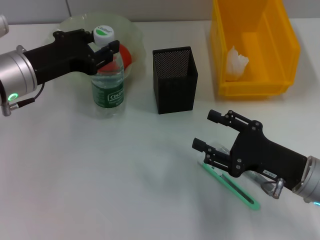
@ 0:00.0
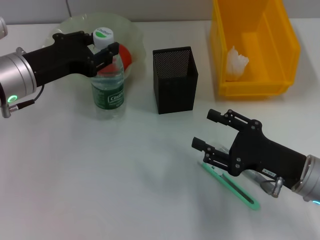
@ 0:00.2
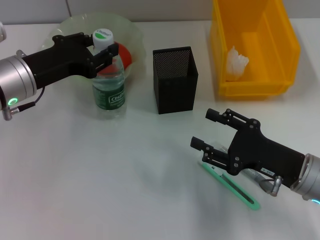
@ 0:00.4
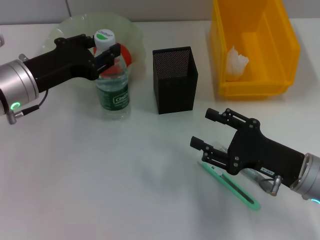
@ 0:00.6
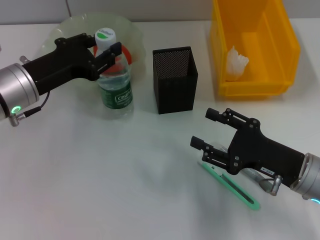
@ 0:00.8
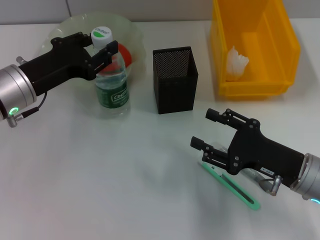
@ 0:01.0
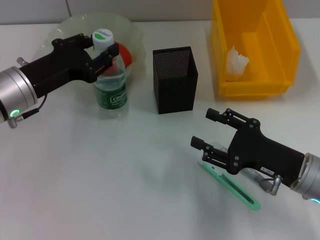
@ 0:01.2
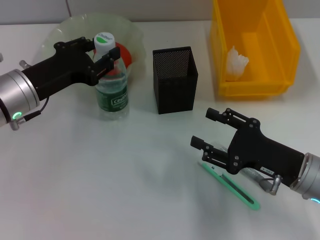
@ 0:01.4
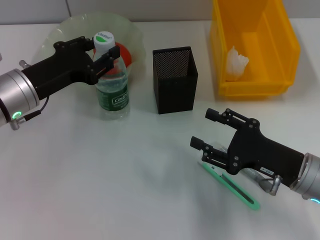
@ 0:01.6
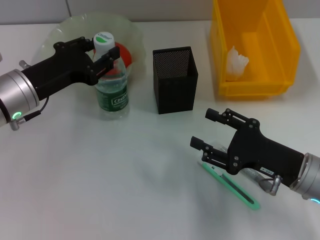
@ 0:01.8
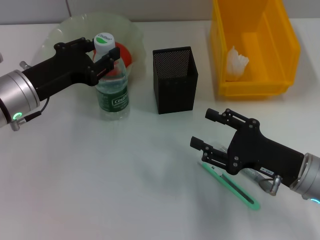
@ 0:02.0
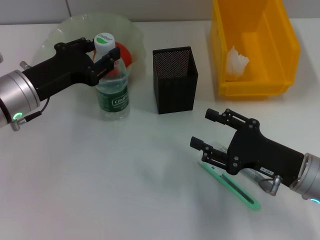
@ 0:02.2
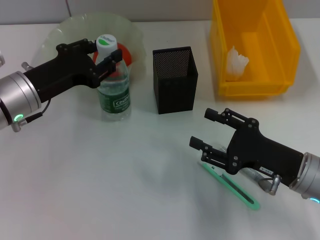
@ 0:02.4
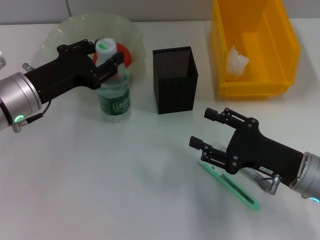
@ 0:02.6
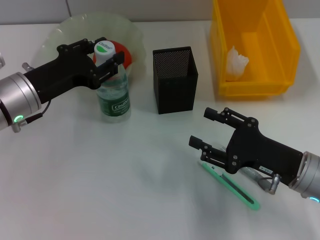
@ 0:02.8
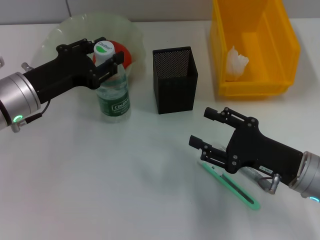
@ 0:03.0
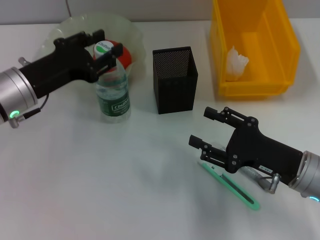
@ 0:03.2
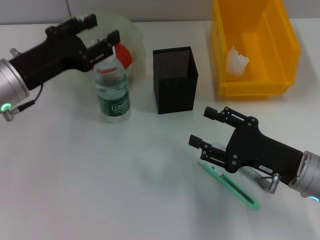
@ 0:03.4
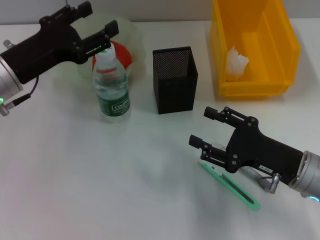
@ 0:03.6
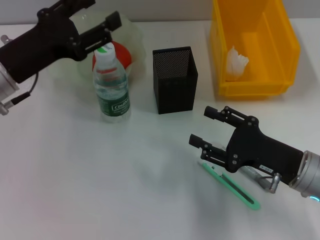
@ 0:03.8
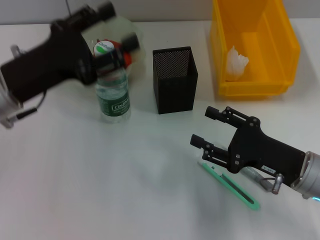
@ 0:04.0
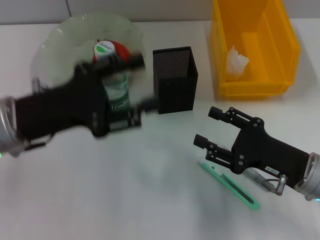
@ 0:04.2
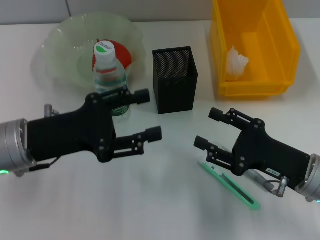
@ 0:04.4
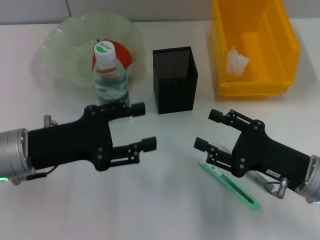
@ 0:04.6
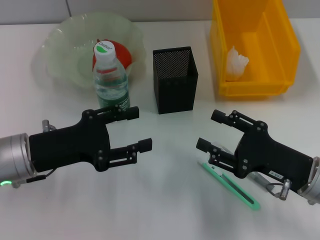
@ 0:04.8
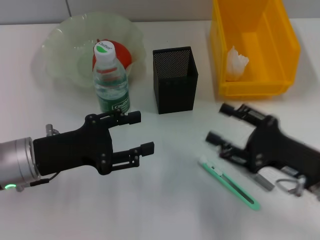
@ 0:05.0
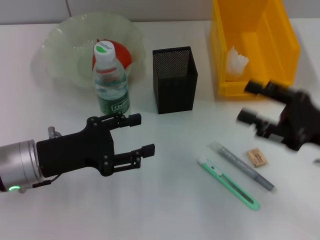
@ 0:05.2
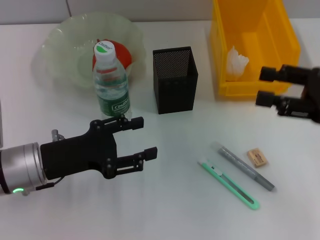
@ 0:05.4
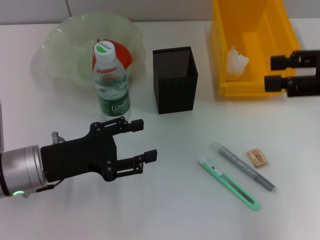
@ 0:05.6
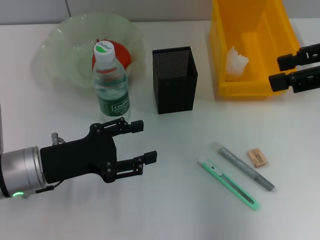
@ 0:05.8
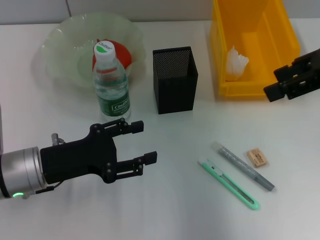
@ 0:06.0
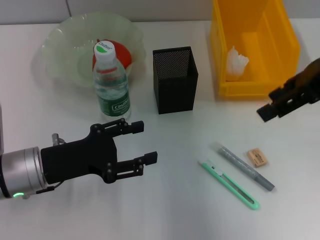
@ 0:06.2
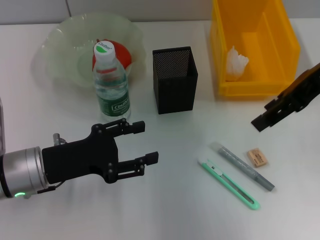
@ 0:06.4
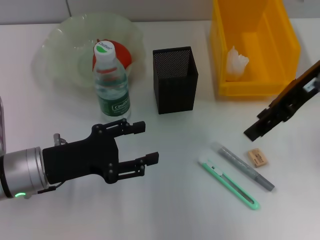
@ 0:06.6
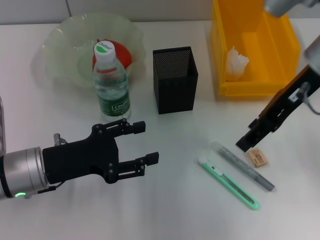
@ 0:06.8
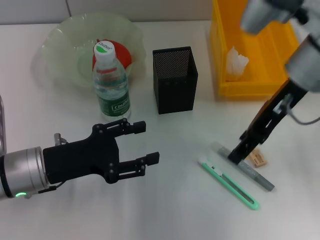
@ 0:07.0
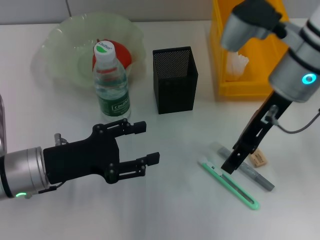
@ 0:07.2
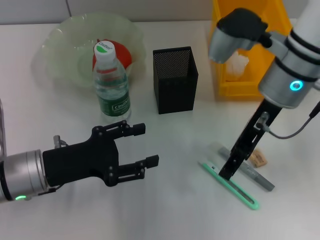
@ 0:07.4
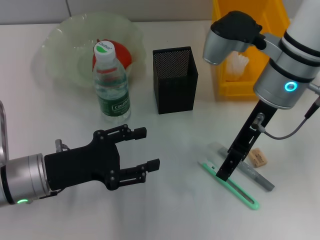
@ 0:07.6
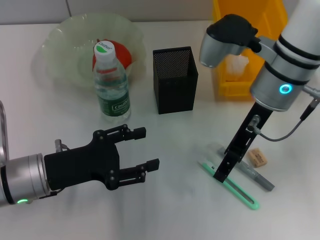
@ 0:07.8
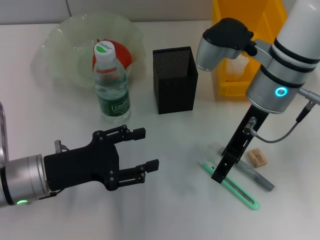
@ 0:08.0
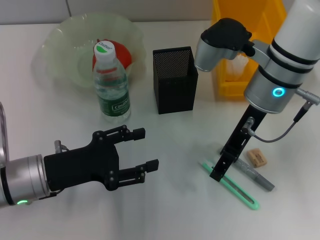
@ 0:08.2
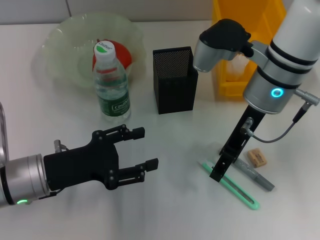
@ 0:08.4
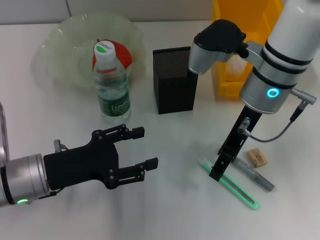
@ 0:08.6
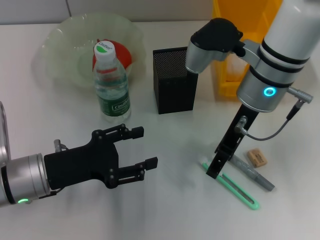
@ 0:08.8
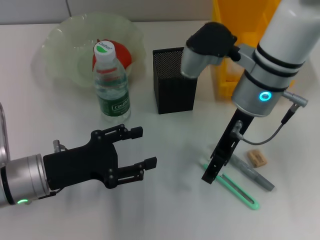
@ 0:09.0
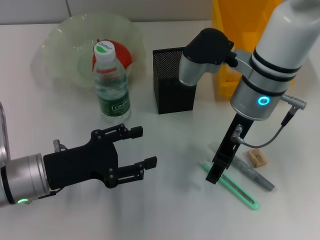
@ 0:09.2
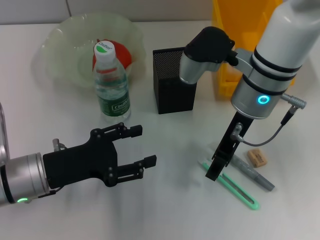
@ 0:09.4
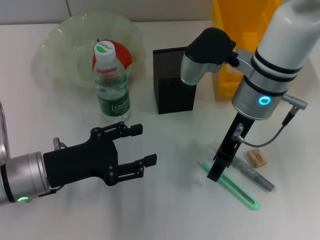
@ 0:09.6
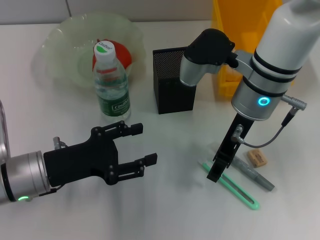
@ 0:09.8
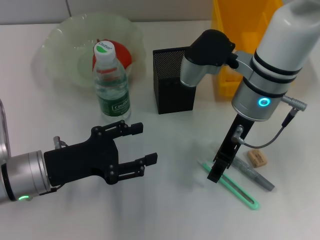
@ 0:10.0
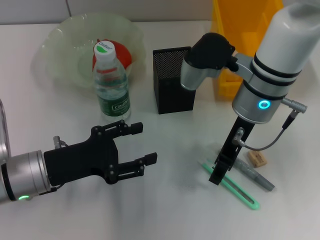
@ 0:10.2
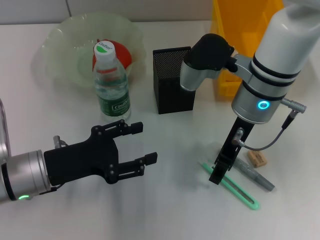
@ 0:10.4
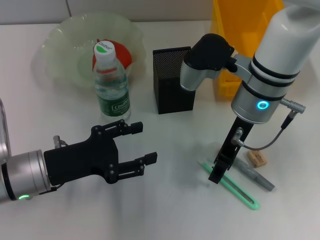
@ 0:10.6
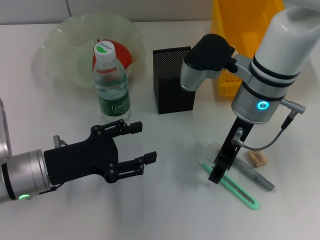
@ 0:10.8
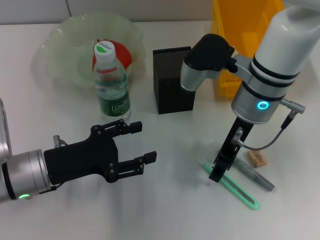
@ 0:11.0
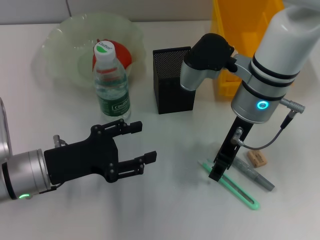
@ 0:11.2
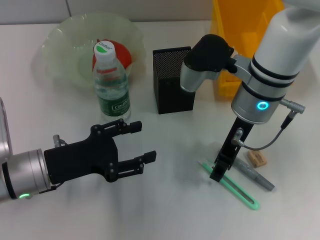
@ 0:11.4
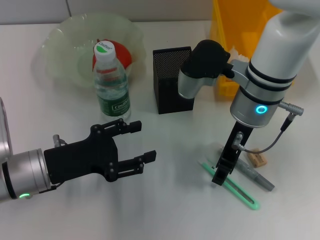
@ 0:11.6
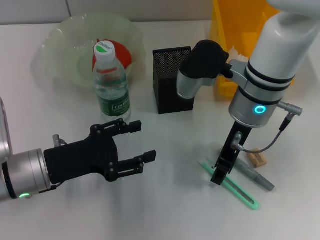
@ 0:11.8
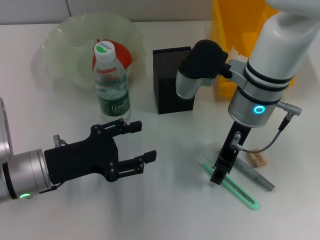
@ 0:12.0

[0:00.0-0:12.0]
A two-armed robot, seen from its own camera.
Step, 0:00.0 to 0:03.2: Place the water bottle on the table with the left hand.
0:00.0 to 0:01.6: There are only small adjustments of the grippers.
0:01.6 to 0:03.0: Both grippers stay about where they are.
0:03.0 to 0:04.4: The left gripper is displaced backward by approximately 5 cm.
0:04.4 to 0:06.0: The left gripper heads downward, covering approximately 5 cm, while the right gripper heads upward, covering approximately 25 cm.
0:06.0 to 0:07.6: The right gripper is displaced to the left and downward by about 15 cm.
0:07.6 to 0:09.0: The grippers stay close to where they were, moving slightly.
0:09.0 to 0:10.4: Both grippers stay about where they are.
0:10.4 to 0:12.0: Both grippers stay about where they are.

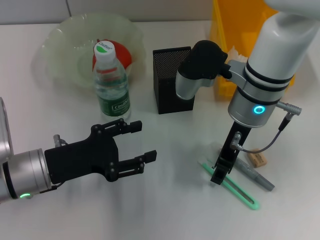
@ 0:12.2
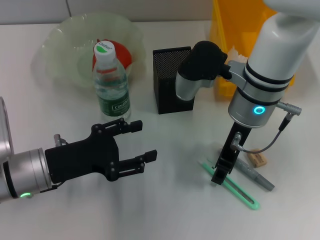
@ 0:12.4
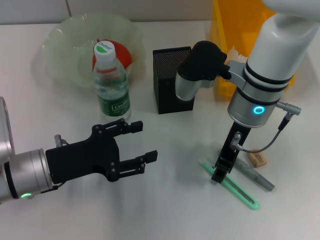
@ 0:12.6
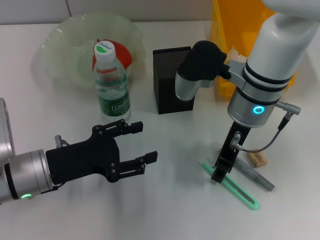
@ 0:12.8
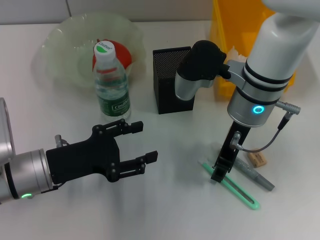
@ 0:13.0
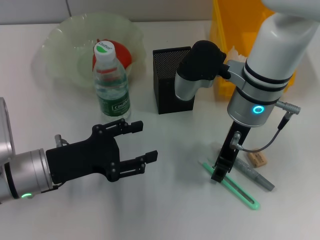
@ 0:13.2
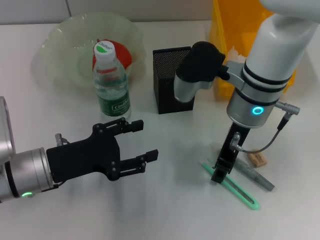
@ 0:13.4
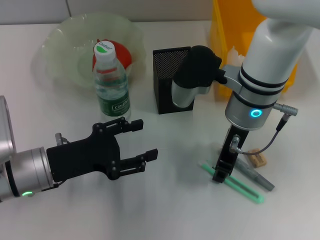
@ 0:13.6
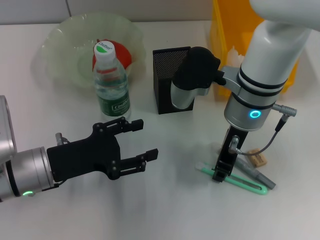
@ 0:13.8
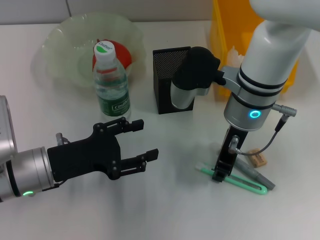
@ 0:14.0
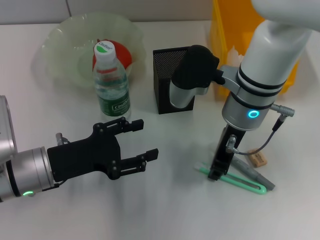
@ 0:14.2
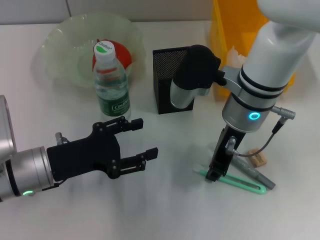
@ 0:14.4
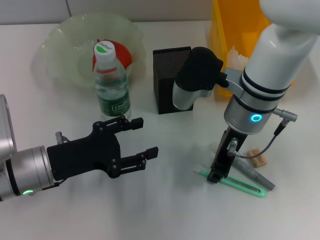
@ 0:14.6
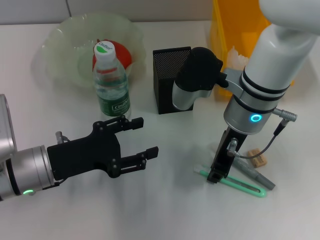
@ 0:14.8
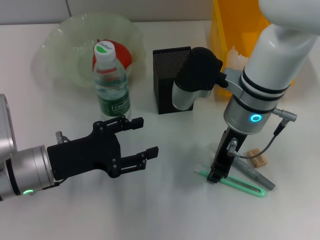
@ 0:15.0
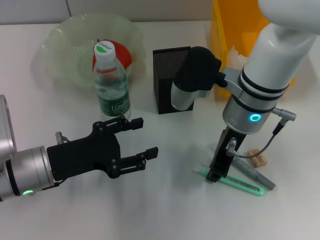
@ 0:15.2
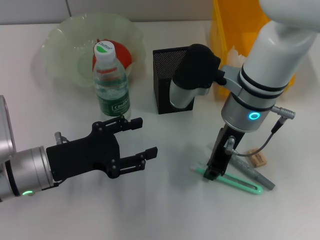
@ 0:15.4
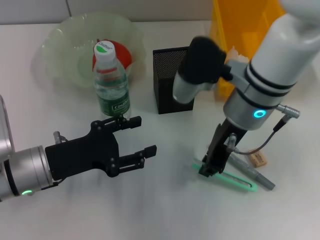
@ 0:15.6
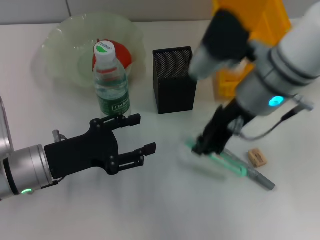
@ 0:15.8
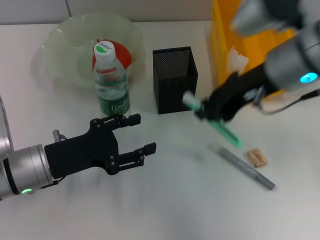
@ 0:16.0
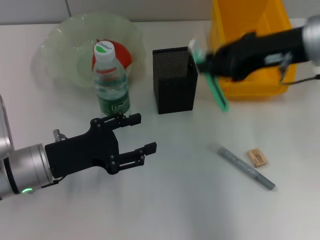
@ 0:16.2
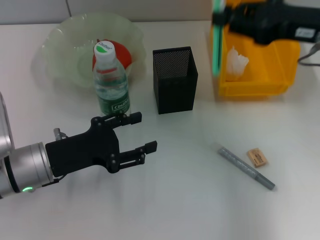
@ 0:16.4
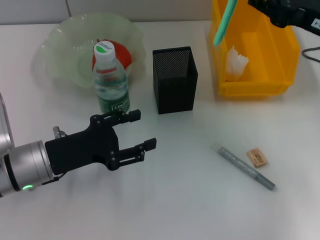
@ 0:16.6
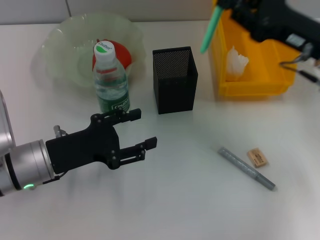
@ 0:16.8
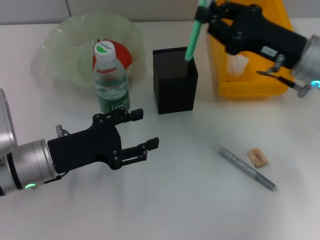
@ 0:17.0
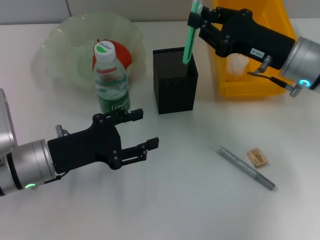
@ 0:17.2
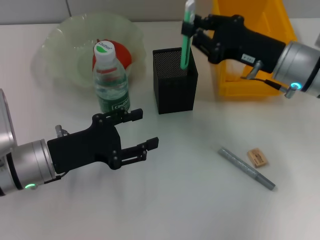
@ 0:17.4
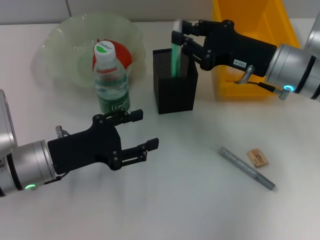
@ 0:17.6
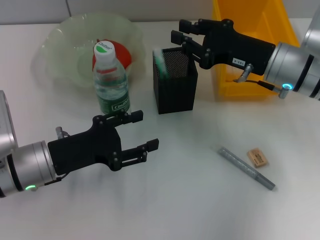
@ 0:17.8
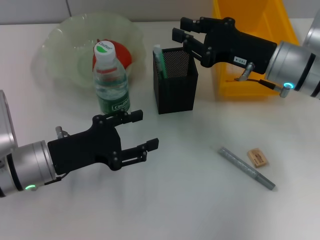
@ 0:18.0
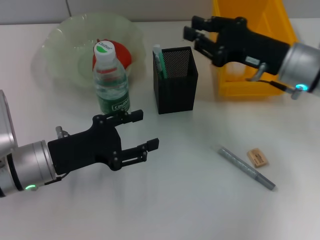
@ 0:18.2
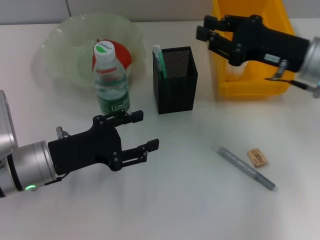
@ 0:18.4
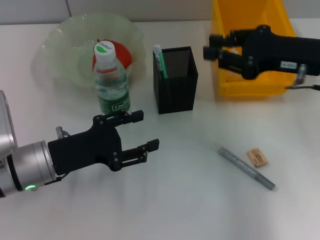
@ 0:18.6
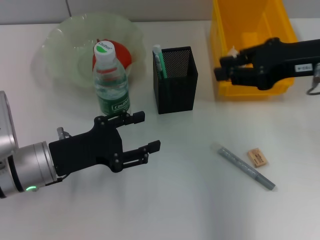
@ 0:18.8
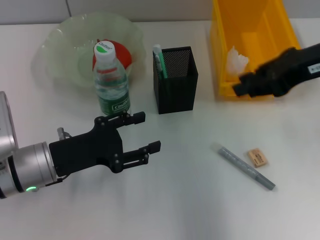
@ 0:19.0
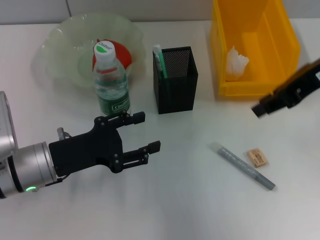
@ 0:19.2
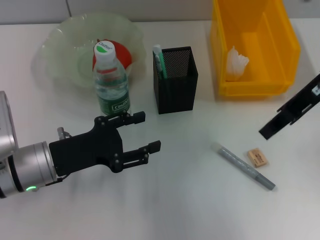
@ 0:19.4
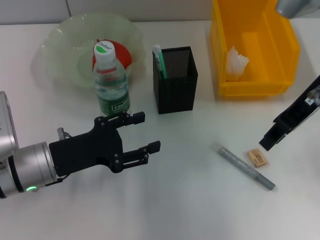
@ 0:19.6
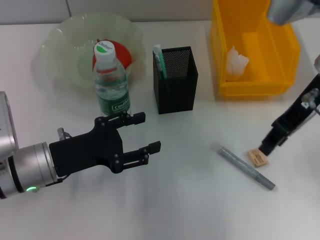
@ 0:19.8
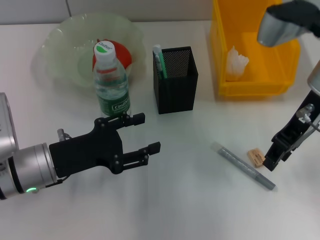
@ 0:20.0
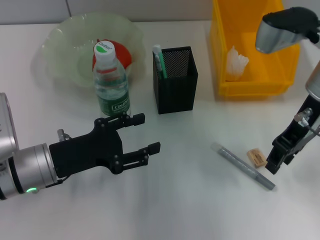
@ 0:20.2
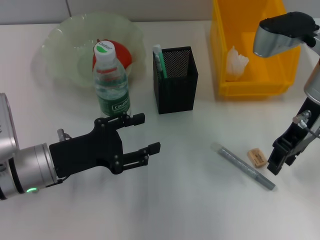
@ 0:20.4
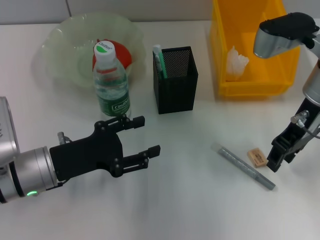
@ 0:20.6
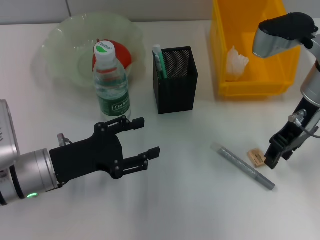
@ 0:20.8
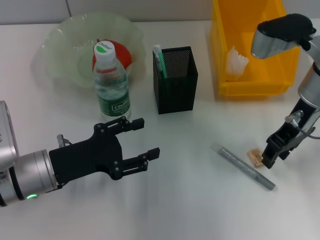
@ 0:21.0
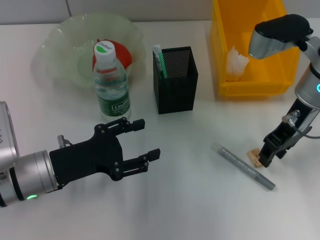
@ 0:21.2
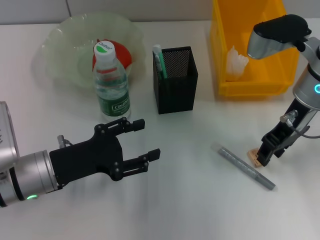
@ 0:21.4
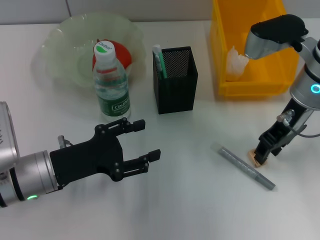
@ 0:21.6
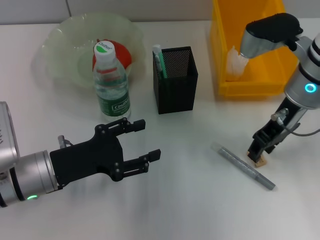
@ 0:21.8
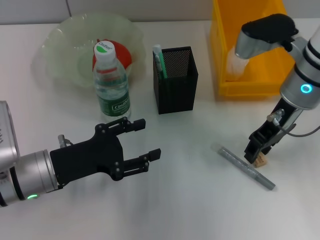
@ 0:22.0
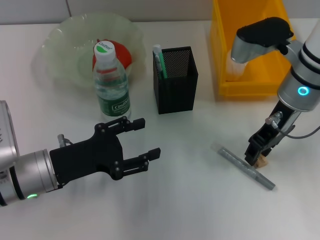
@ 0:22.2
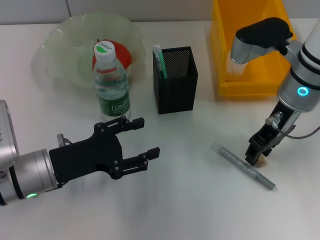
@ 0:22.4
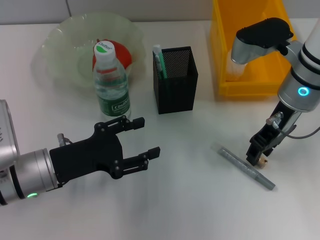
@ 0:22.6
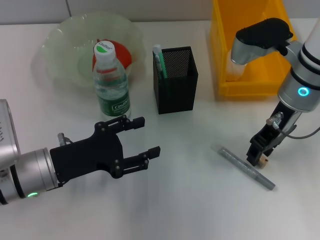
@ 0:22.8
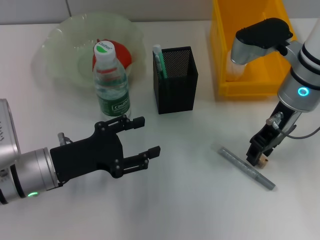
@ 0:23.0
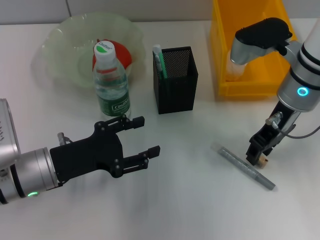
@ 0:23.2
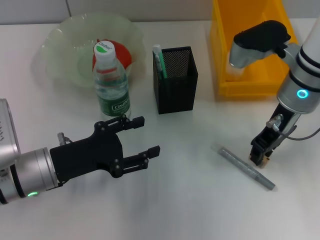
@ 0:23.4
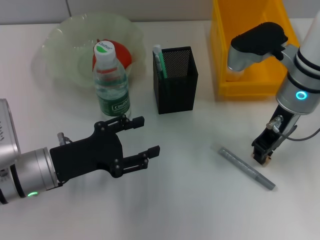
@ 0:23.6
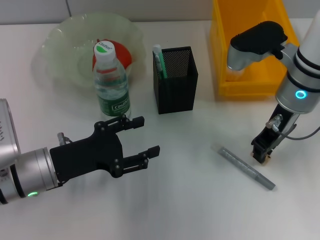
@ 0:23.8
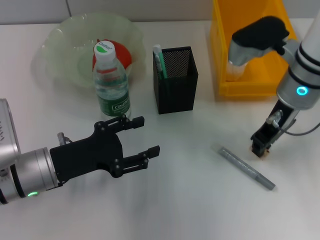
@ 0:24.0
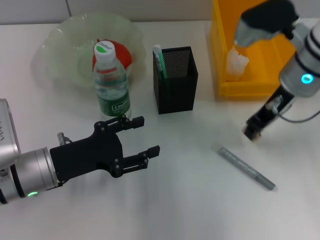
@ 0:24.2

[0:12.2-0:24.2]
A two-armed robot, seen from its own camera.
Step, 0:12.2 to 0:14.6: Grab the blue utility knife with the right hand.
Step, 0:15.0 to 0:17.8: Place the blue utility knife into the pen holder with the right hand.
Step, 0:18.0 to 0:23.6: Grab the eraser with the right hand.
0:12.2 to 0:13.8: Both grippers stay about where they are.
0:13.8 to 0:15.2: The two grippers keep their place.
0:15.2 to 0:16.6: The right gripper travels to the right by approximately 15 cm.
0:16.6 to 0:18.2: The right gripper travels downward by some 5 cm.
0:18.2 to 0:19.8: The right gripper is displaced upward by some 10 cm.
0:19.8 to 0:21.2: The right gripper is displaced downward by about 5 cm.
0:21.2 to 0:22.6: The grippers move only a little.
0:22.6 to 0:24.2: The right gripper closes up.
